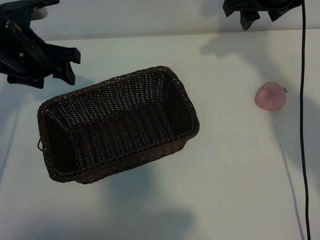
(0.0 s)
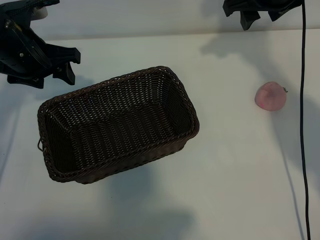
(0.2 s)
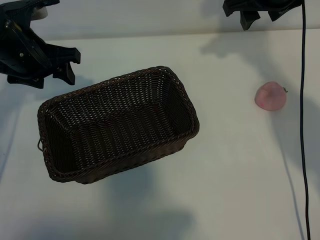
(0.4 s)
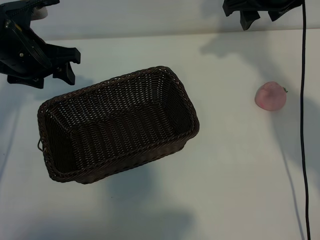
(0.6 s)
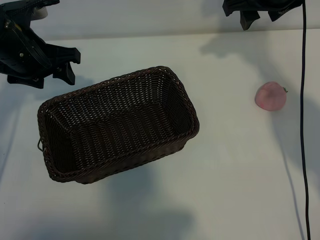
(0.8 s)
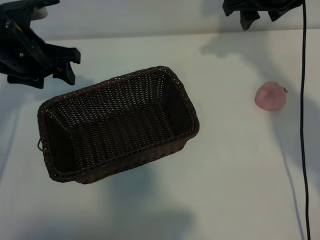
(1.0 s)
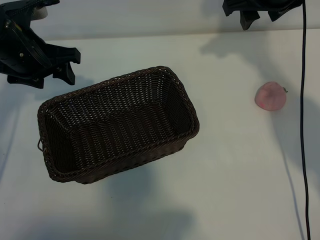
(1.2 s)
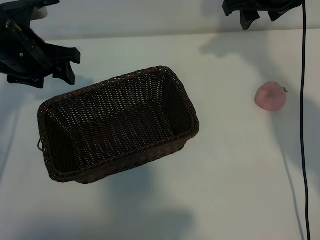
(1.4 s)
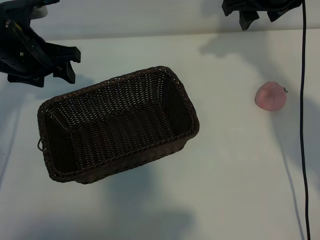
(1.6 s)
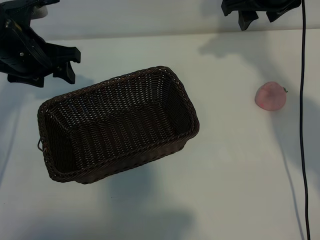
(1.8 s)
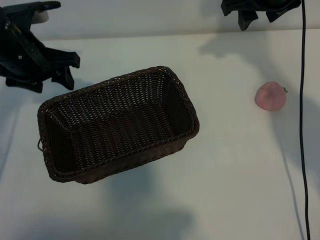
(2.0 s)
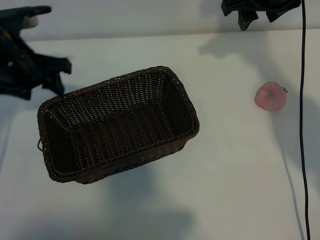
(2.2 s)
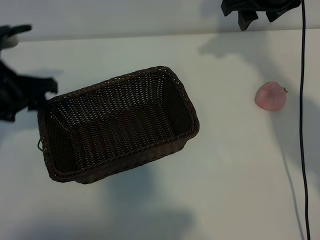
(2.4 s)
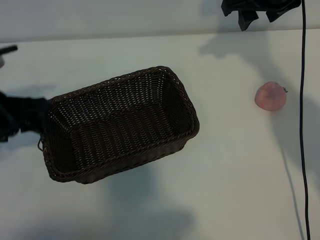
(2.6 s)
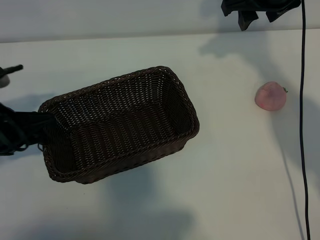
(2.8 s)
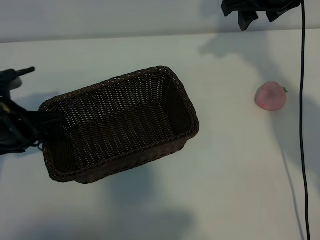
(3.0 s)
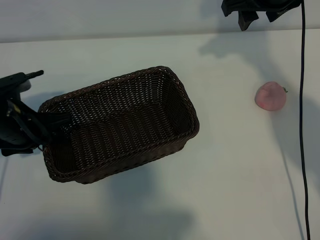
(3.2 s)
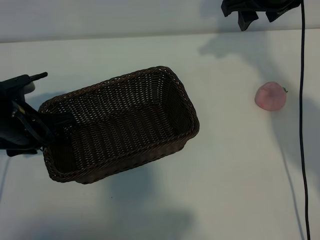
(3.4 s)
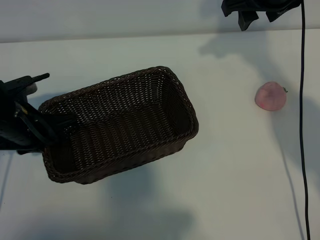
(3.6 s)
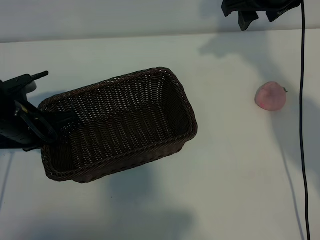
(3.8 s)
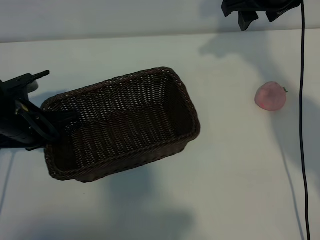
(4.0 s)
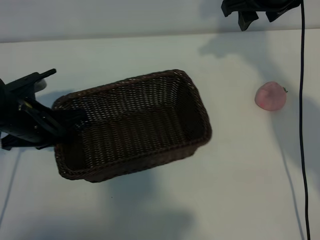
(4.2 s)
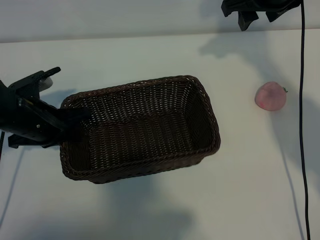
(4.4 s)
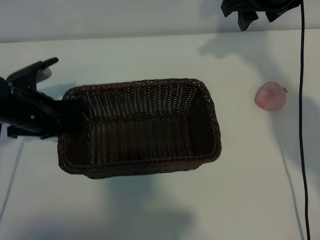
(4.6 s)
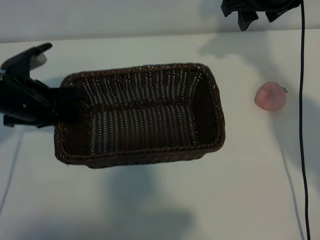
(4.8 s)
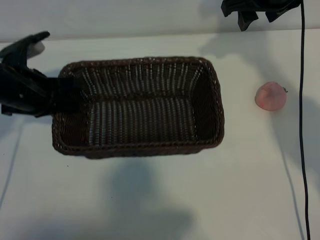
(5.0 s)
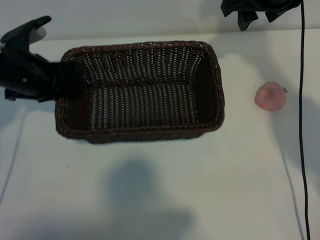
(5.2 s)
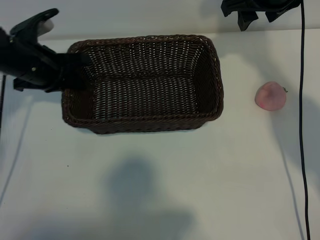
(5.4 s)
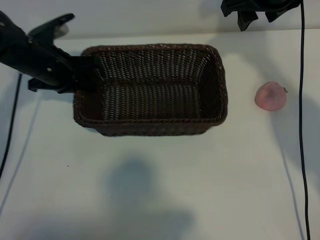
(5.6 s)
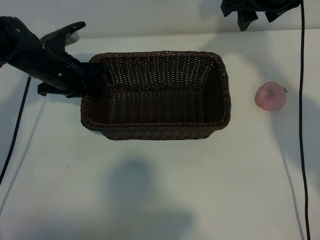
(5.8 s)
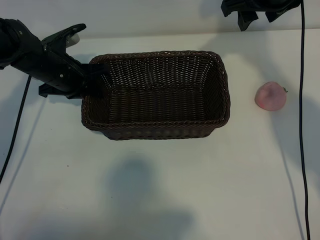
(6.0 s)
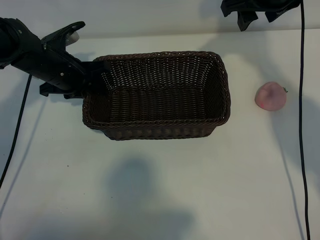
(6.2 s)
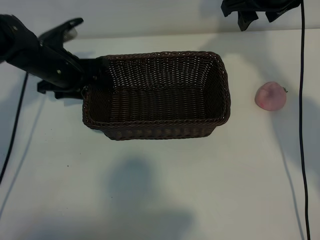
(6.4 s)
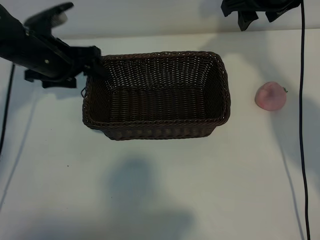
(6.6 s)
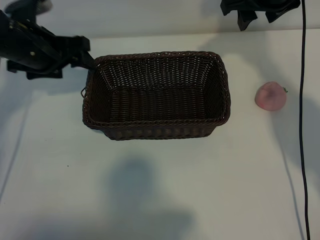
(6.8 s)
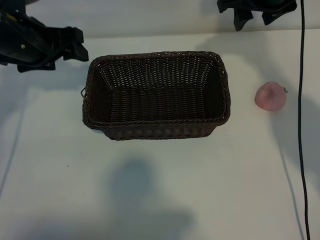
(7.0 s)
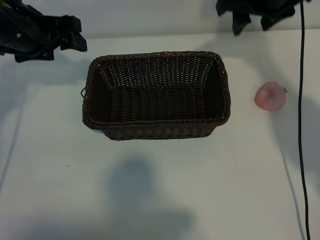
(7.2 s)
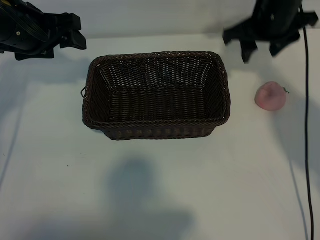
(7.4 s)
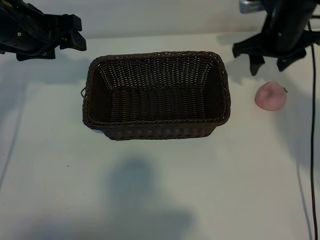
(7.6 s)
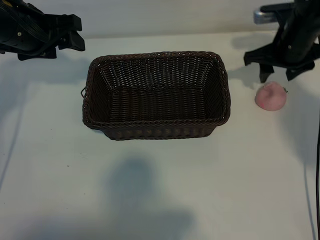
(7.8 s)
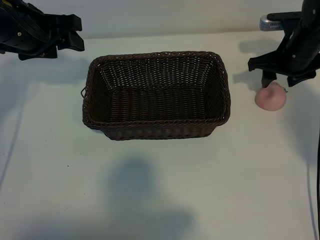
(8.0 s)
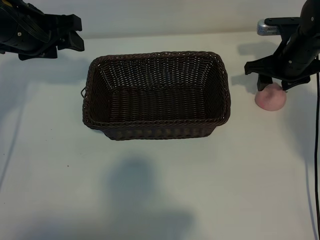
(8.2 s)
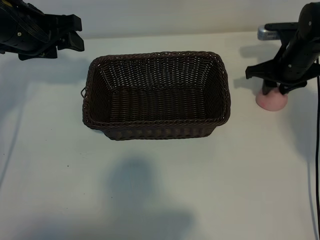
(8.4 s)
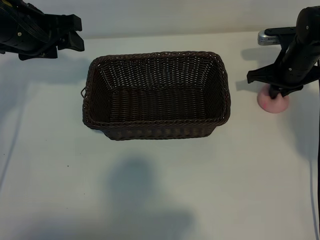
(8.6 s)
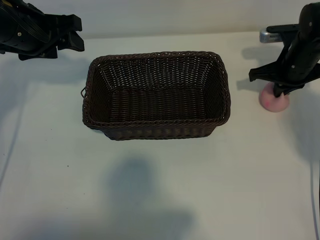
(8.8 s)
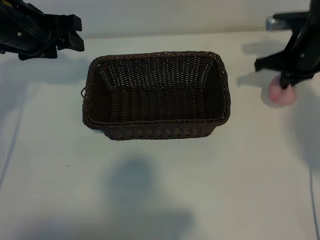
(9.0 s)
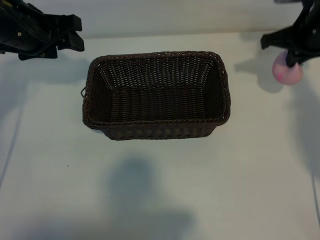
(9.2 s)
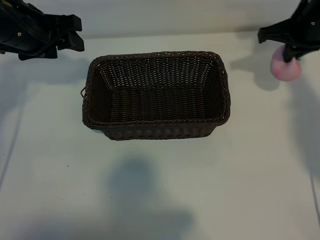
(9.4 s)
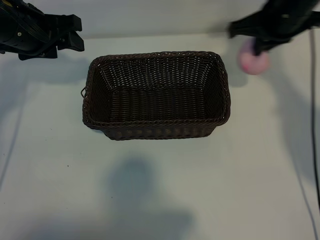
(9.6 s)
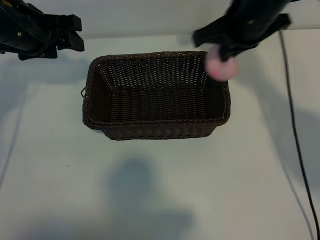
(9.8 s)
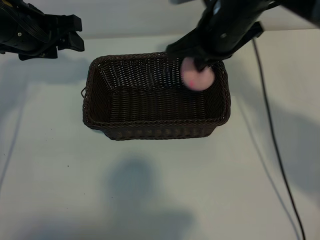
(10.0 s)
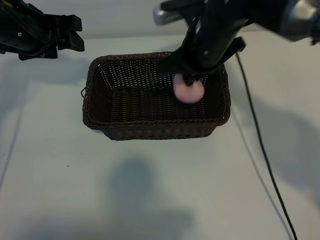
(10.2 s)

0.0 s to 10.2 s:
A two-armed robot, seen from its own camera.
Task of the whole recording: pick up the peach and put it into the basket.
Step, 1.6 to 4.2 s: Grasp the basket with left gripper.
Step, 4.4 to 6.4 s: Place the basket in the center of view with left gripper.
Step, 6.6 to 8.8 s: Grasp the peach with right gripper.
